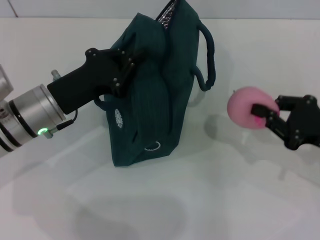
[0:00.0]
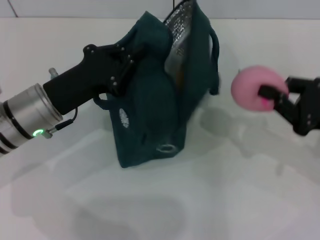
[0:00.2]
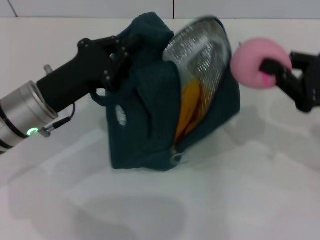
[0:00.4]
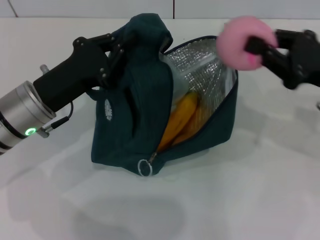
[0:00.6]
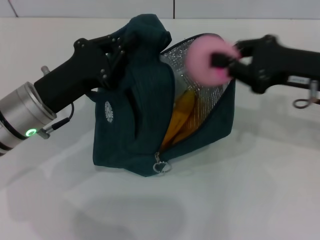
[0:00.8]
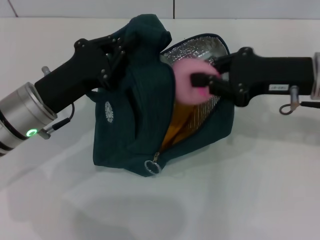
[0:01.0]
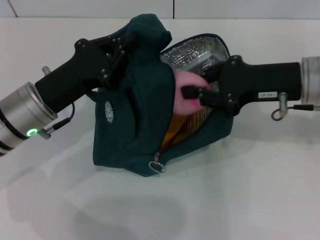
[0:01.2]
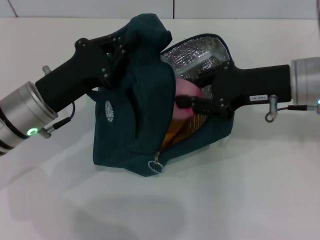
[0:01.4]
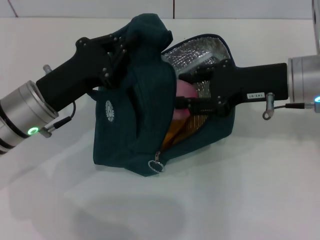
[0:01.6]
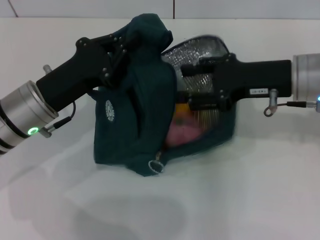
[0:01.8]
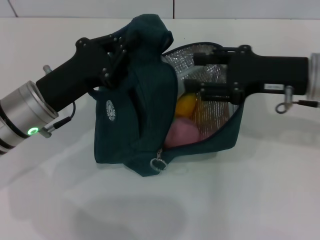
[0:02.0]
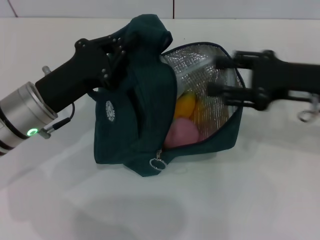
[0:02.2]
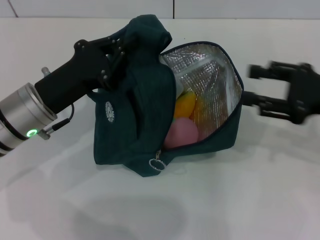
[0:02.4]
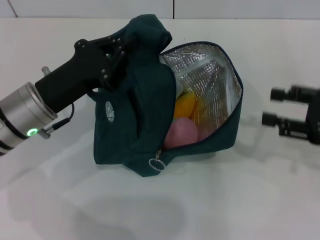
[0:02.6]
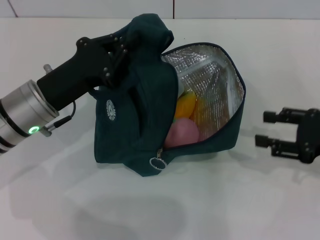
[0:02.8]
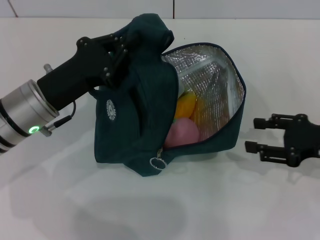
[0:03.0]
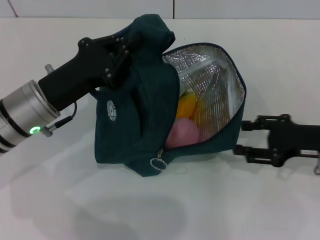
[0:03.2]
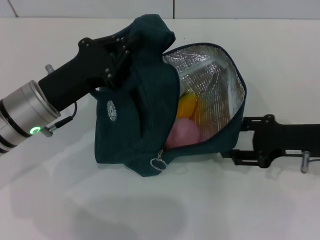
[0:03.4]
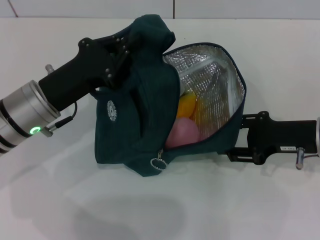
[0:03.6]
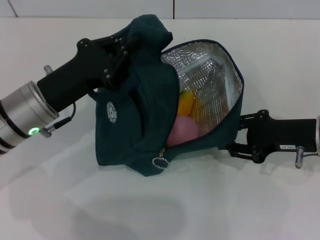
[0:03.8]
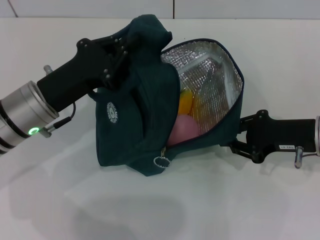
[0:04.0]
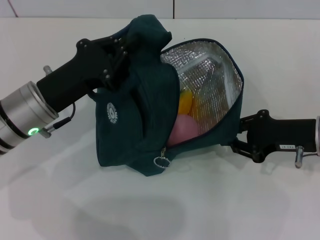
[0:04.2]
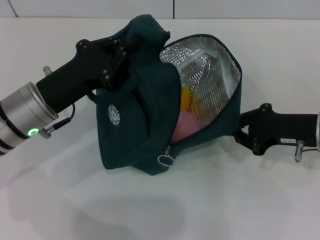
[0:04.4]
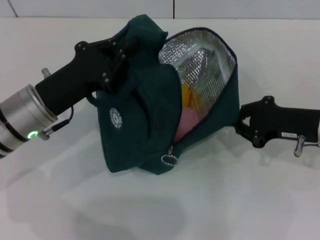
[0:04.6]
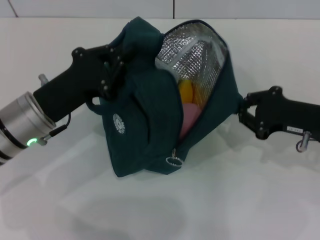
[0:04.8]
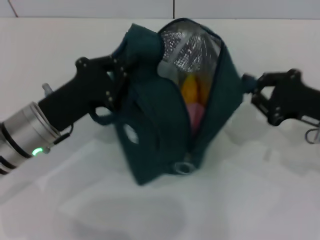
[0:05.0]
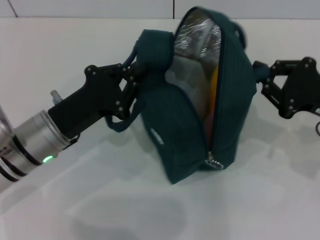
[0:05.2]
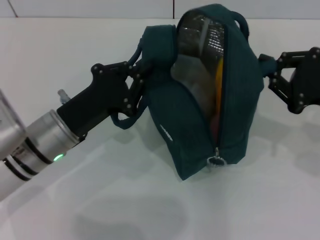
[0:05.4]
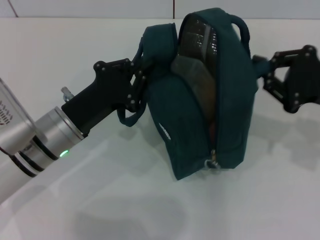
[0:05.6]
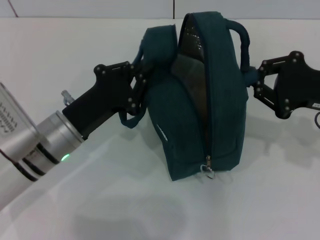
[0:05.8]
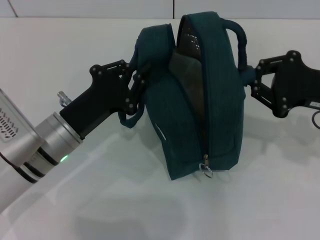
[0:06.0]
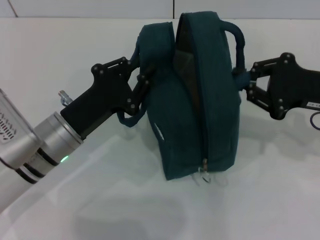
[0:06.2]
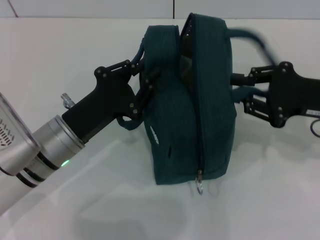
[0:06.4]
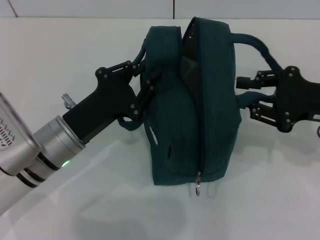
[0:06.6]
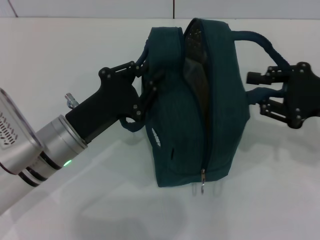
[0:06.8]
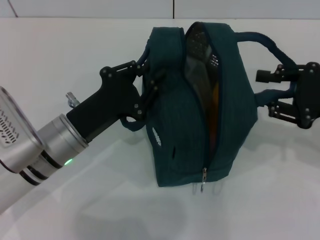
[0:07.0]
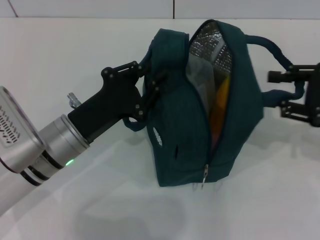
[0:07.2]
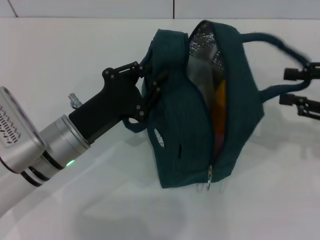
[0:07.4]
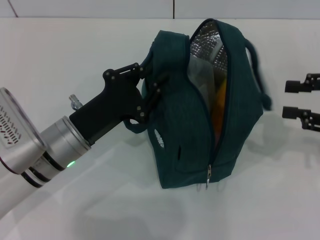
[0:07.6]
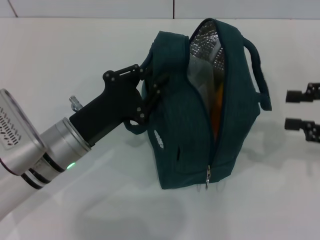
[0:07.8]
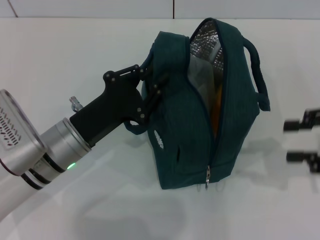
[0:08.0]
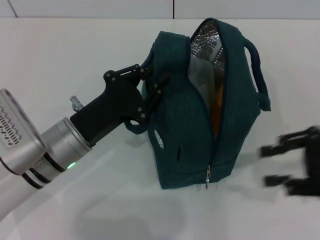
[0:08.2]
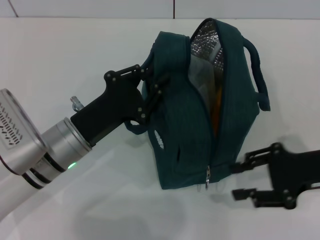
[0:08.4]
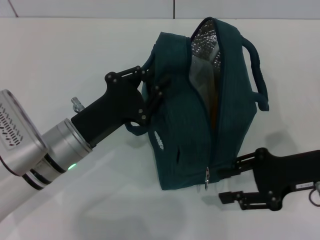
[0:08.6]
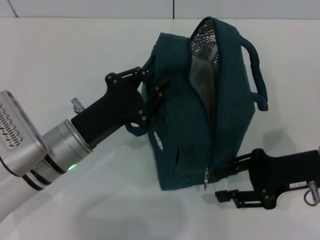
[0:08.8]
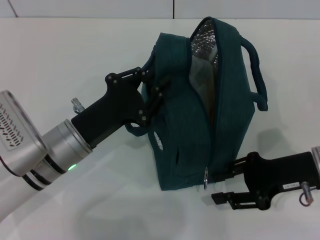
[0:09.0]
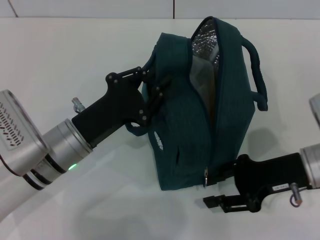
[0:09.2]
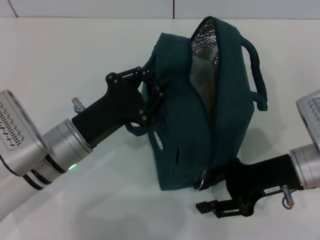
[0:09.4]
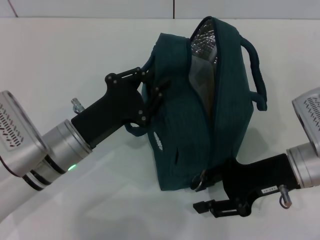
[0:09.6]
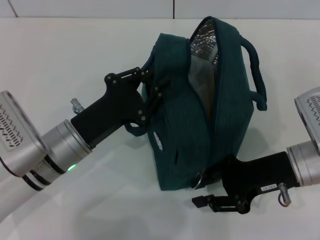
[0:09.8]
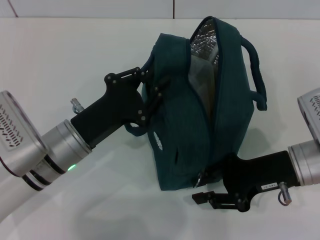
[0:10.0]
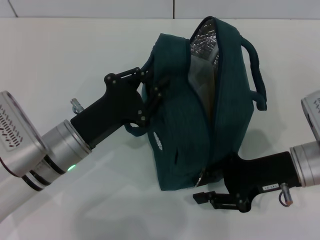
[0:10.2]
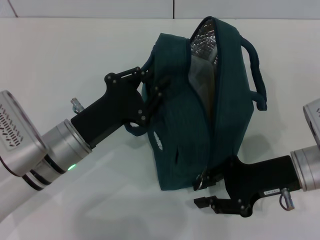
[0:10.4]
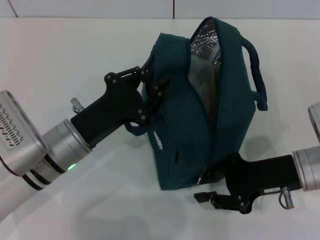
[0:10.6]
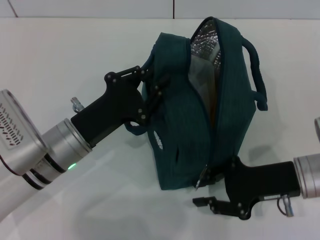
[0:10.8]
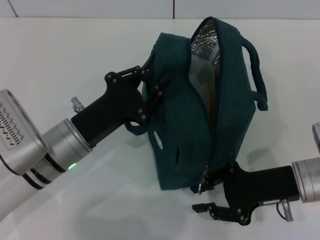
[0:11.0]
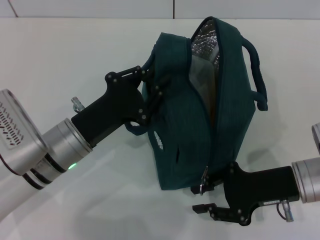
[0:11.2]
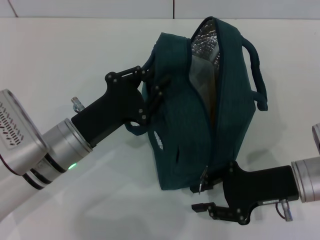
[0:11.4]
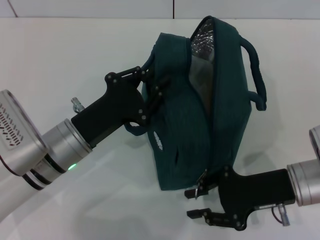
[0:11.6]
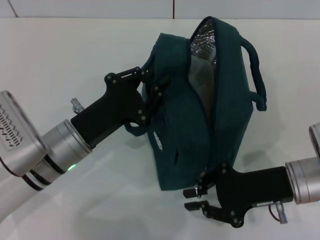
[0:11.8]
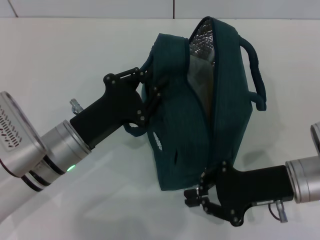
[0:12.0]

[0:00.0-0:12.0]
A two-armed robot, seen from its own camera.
Step, 0:02.2 to 0:07.2: Hold the lunch bag with your right hand.
0:00.0 to 0:01.6: The right gripper moves to the left, upward and forward, some 15 cm.
0:01.6 to 0:03.0: The right gripper moves to the right, downward and backward, some 15 cm, and opens up.
0:03.0 to 0:04.4: The right gripper moves some 5 cm, and closes its fingers.
0:04.4 to 0:06.0: The right gripper ends up about 5 cm from where it was. Meanwhile the left gripper moves about 5 cm.
0:06.0 to 0:07.6: The right gripper moves to the right, roughly 5 cm, and opens.
0:07.6 to 0:09.0: The right gripper is displaced to the left and downward by about 15 cm.
0:09.0 to 0:10.4: The grippers stay close to where they were, moving slightly.
0:10.4 to 0:12.0: The grippers stay close to where they were, moving slightly.

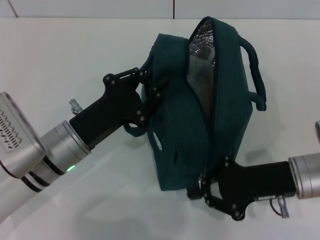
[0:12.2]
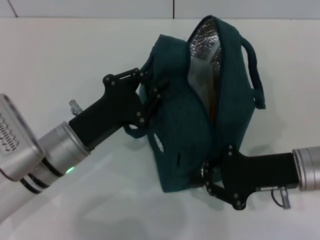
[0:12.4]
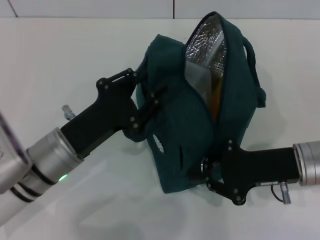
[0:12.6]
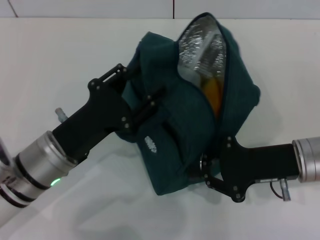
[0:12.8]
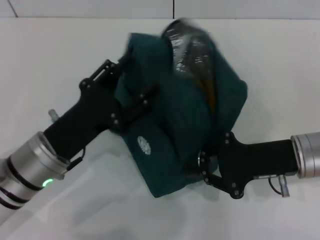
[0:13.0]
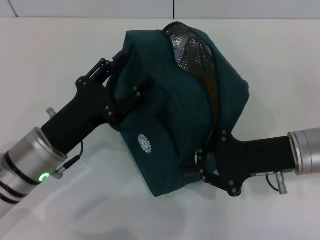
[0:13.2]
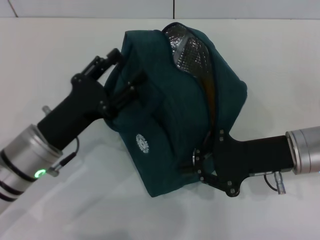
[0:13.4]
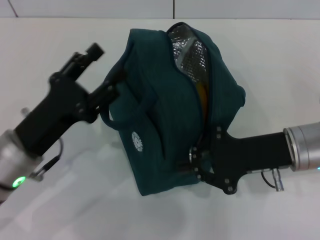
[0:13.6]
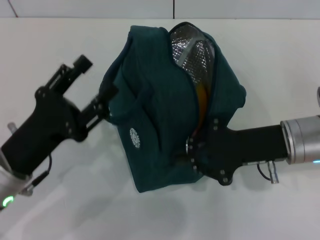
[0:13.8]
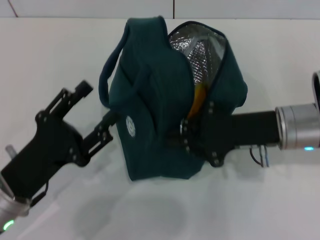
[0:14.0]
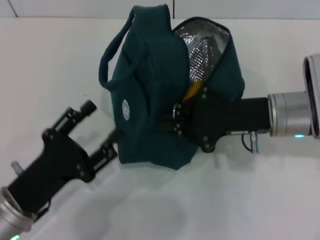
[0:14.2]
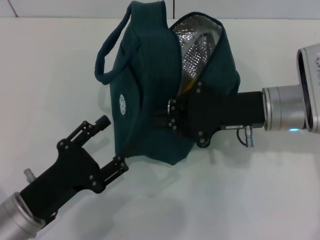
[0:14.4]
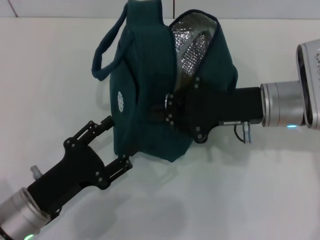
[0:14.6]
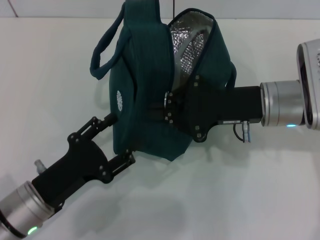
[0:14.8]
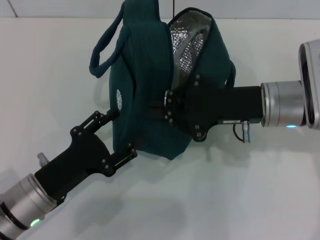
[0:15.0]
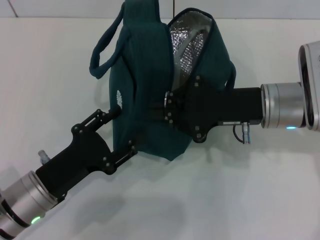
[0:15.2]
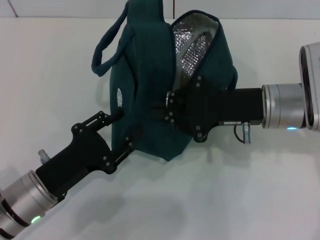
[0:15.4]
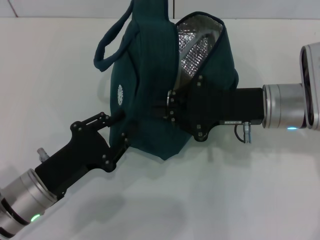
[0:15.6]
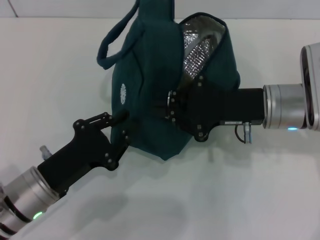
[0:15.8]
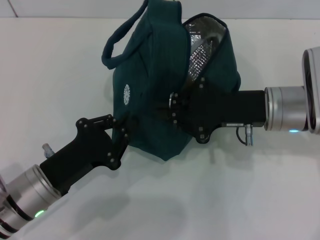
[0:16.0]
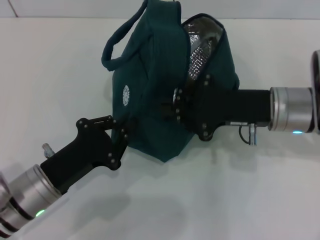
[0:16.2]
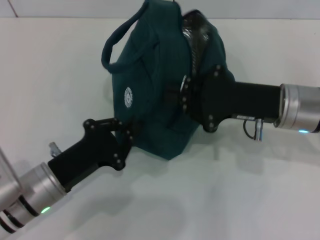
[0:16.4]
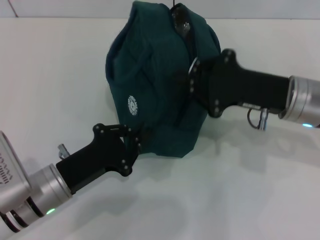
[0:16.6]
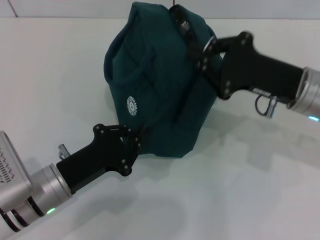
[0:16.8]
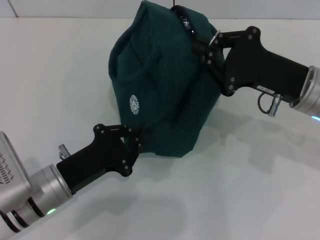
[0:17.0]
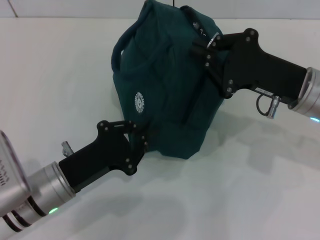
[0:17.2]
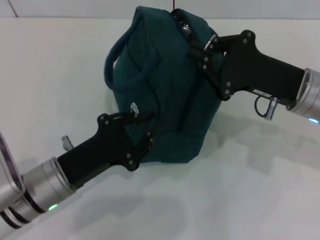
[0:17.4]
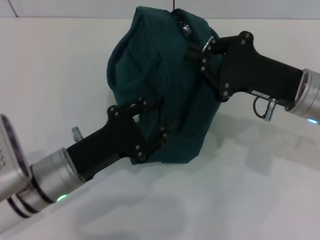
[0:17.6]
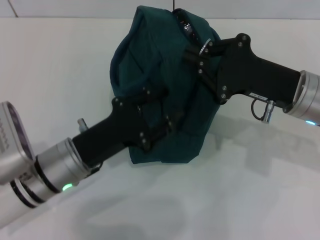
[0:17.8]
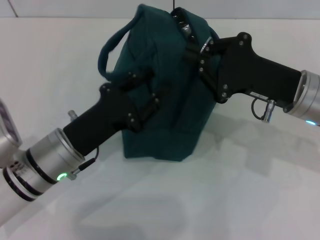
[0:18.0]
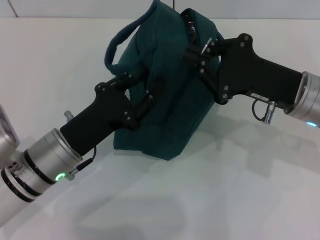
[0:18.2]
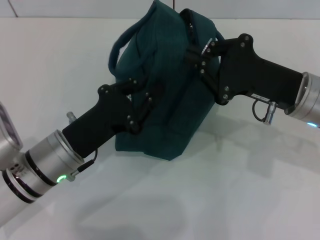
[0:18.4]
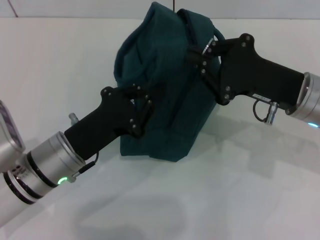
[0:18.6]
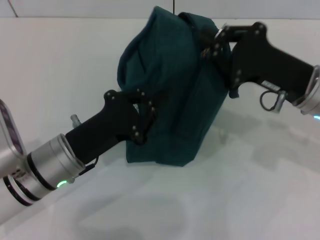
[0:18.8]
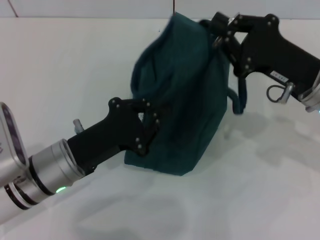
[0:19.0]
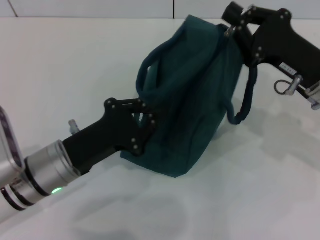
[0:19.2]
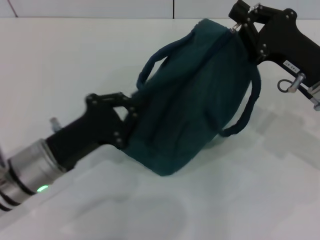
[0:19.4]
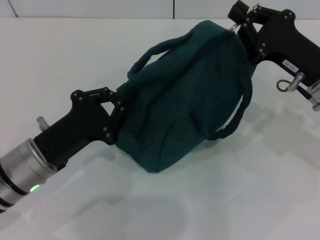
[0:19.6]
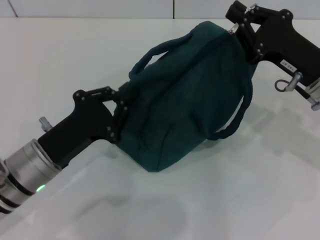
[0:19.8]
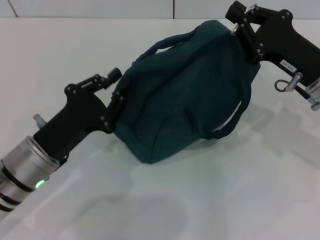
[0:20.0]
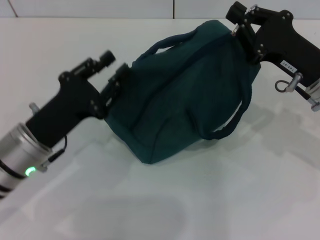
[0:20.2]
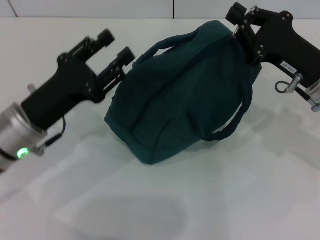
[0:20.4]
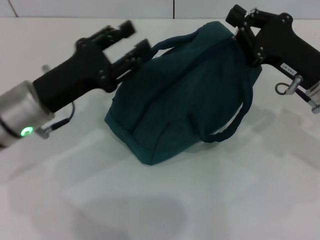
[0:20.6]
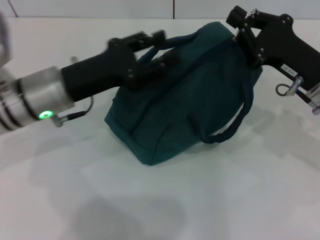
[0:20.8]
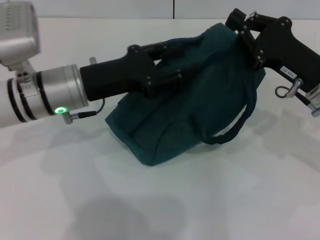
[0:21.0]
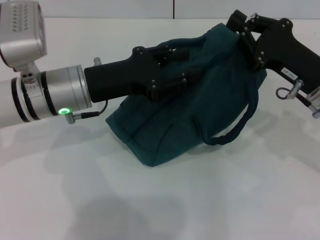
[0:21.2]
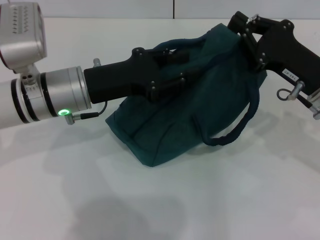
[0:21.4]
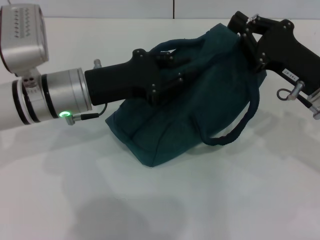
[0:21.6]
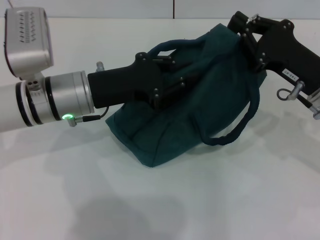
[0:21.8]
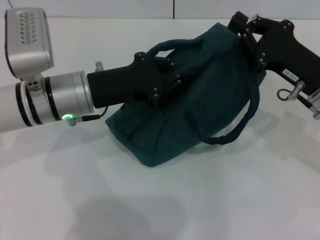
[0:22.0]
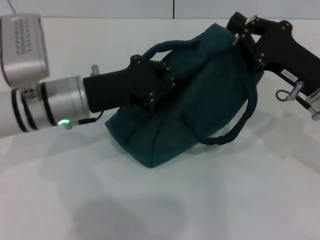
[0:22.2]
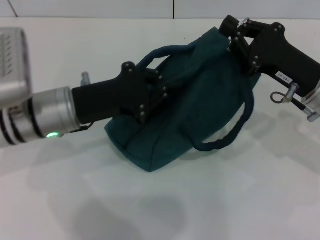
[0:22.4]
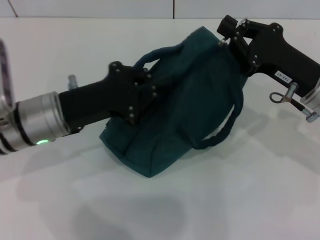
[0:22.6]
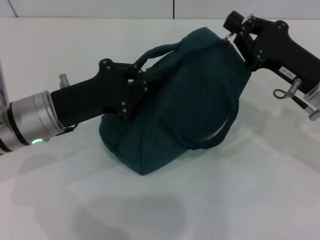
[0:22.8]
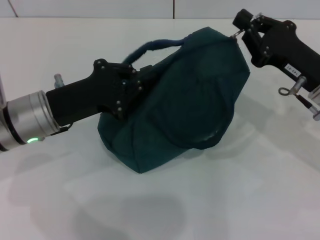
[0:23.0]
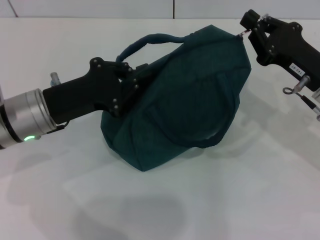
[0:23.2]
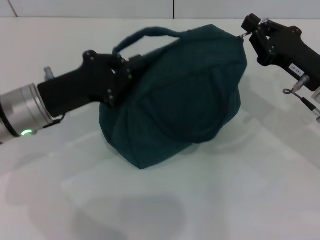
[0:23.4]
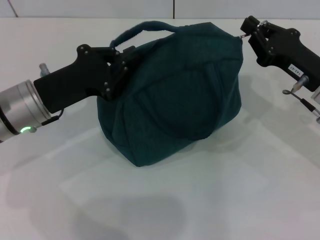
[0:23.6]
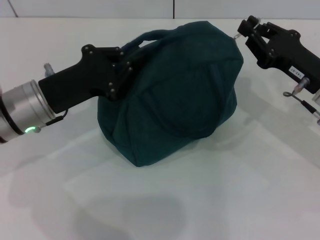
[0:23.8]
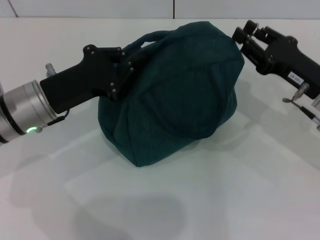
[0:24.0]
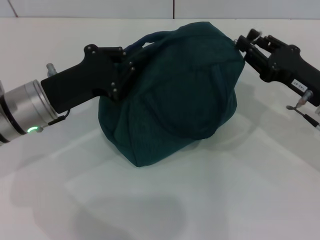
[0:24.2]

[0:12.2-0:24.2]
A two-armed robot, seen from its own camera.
0:12.2 to 0:13.8: The right gripper ends up about 5 cm from where it was. Meanwhile the left gripper shifts roughly 10 cm to the left and backward, and opens up.
0:15.2 to 0:16.6: The left gripper closes.
0:16.6 to 0:18.2: The left gripper opens its fingers.
0:18.2 to 0:19.8: The left gripper closes up.
0:19.8 to 0:21.2: The left gripper is displaced forward and upward by some 10 cm, and opens.
0:21.2 to 0:22.6: The left gripper closes its fingers.
0:22.6 to 0:24.2: The right gripper opens up.
